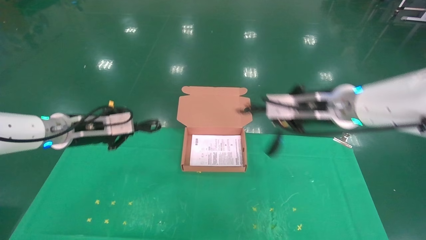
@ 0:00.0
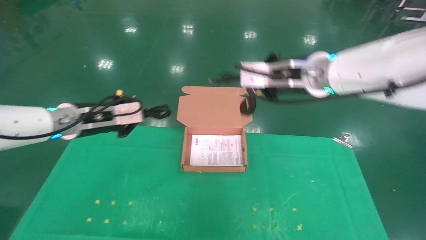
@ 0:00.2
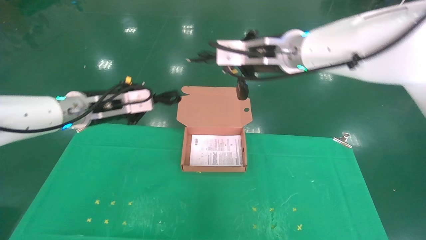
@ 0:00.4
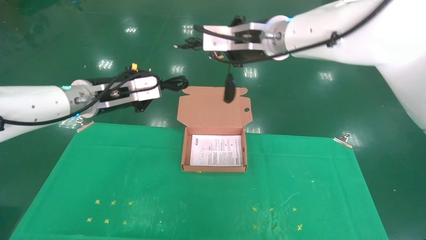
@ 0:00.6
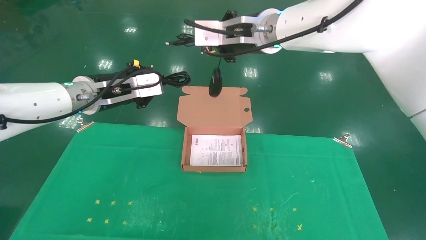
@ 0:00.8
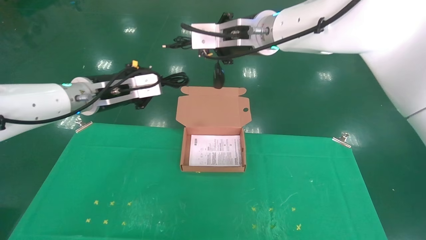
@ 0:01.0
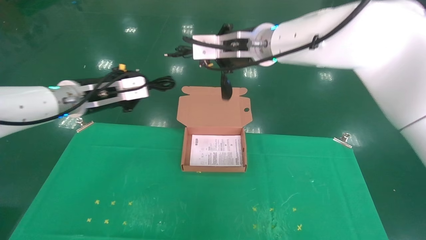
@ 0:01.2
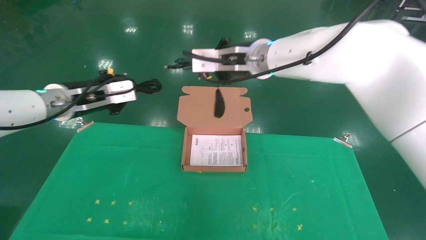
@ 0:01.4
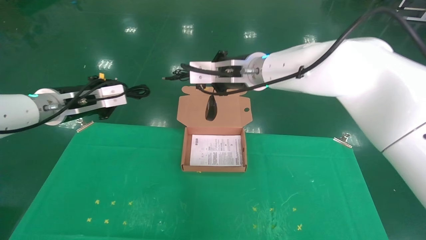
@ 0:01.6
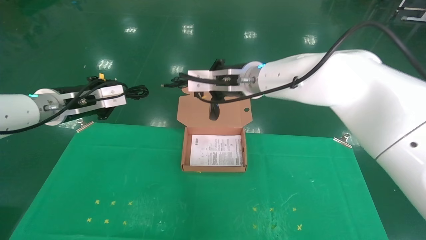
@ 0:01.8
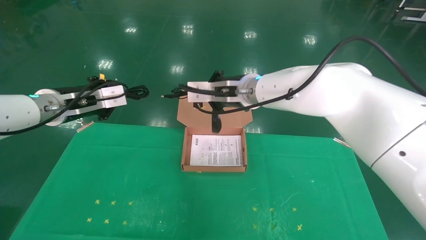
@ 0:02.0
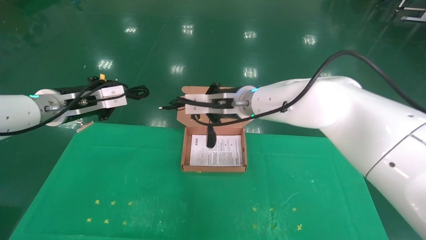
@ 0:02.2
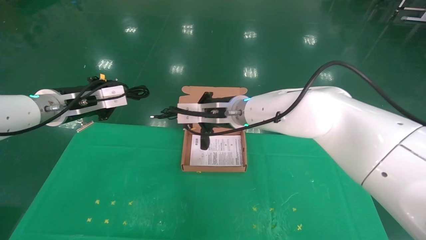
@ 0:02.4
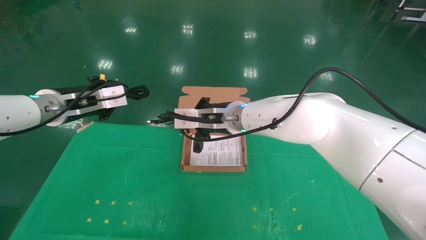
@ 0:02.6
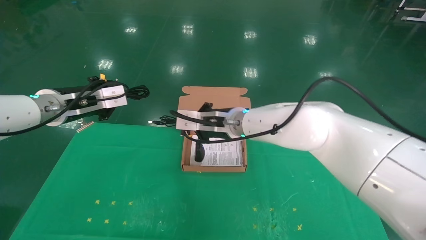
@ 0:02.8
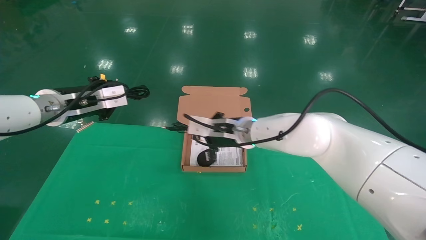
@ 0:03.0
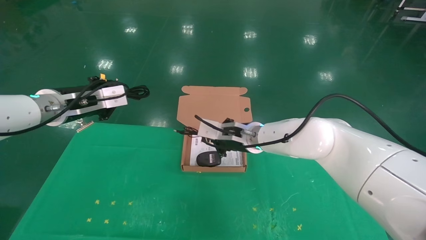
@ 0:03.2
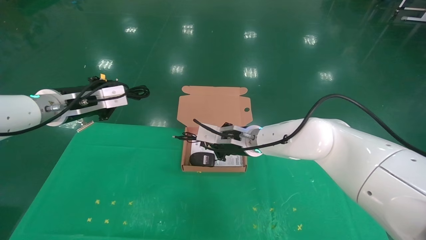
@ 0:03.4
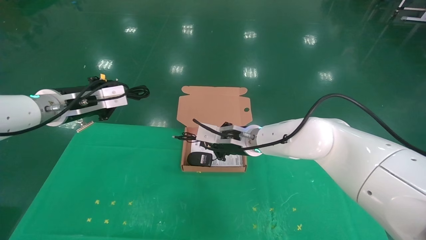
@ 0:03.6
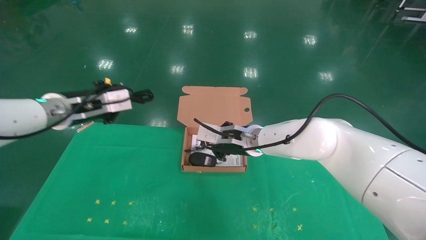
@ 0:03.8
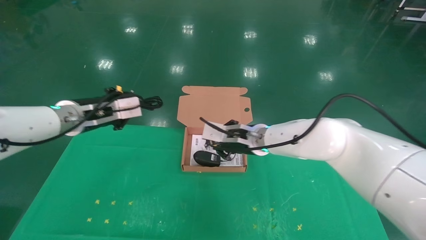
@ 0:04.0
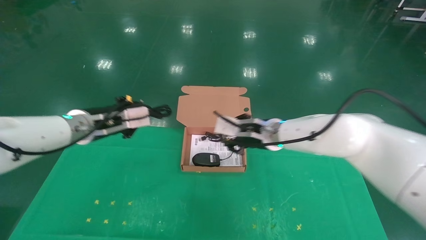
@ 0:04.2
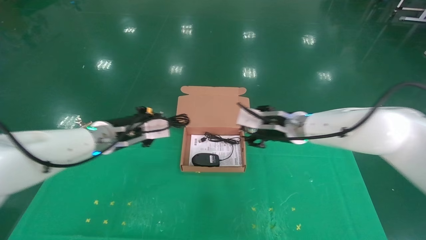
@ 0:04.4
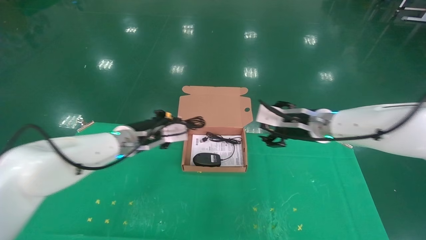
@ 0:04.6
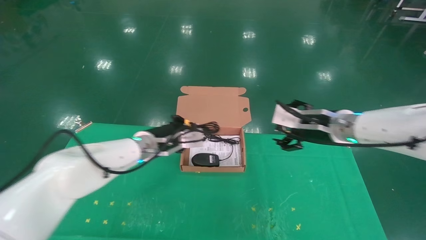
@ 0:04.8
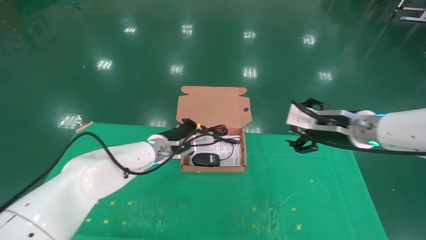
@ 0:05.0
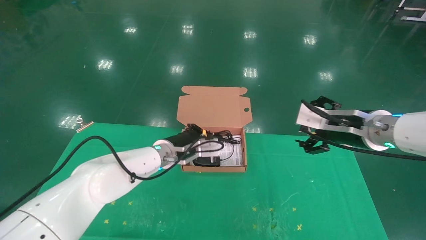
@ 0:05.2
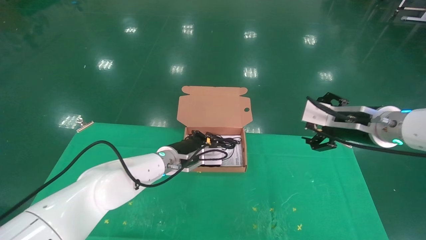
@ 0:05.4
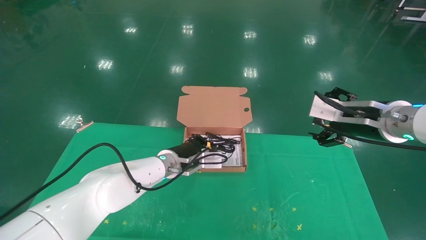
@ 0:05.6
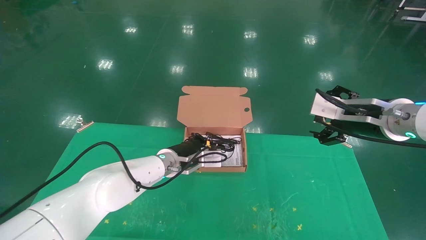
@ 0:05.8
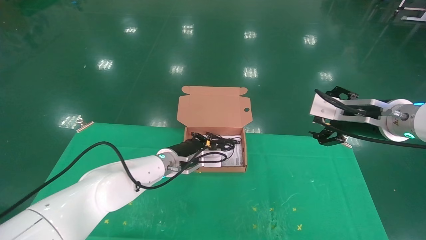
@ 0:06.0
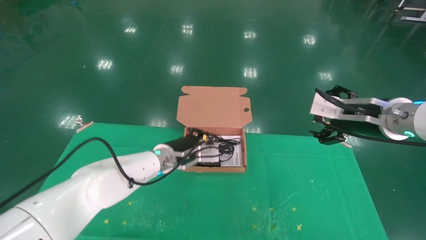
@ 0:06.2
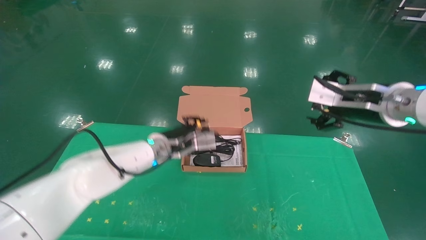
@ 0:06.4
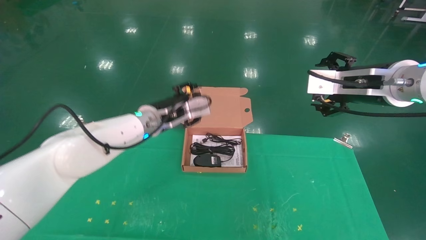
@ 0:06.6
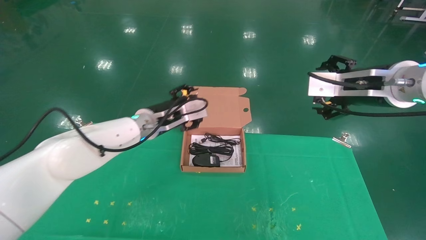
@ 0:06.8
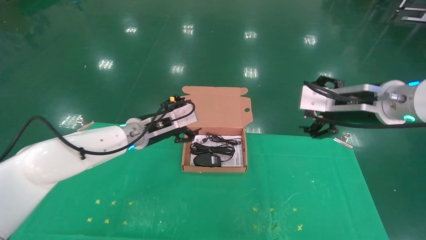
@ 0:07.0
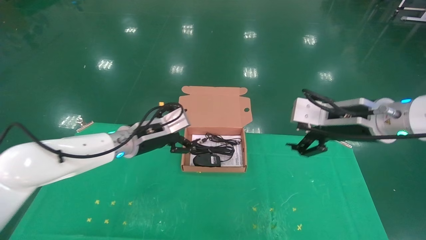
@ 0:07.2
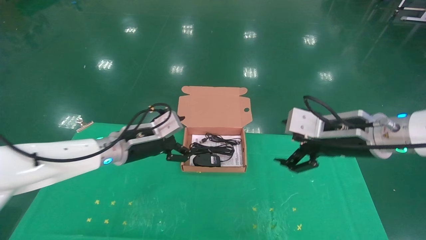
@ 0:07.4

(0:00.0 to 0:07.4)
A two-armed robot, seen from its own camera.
Task of the whole recording: grasp data cable left put into box grasp mouse right put into box.
Step, 0:00.0 - 0:06.6: Place the mouse and power cord into the box.
0:00.0 - 0:01.4: The left gripper moves upward, about 10 cm; the right gripper is displaced to the left and upward by approximately 15 cm.
0:01.4 - 0:03.0: The right gripper shifts some 15 cm downward.
0:03.0 - 0:04.4: The right gripper moves to the right, some 10 cm, and opens. The left gripper heads to the right and downward, covering about 10 cm.
0:04.4 - 0:06.0: The left gripper goes some 15 cm to the right and downward. Meanwhile the right gripper is displaced to the right, backward and upward by approximately 15 cm, and opens its fingers.
0:06.0 - 0:07.4: The left gripper goes approximately 10 cm to the left, backward and upward, and opens up; the right gripper changes place by about 5 cm.
